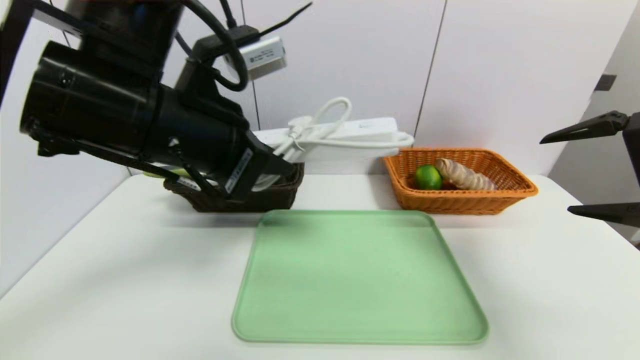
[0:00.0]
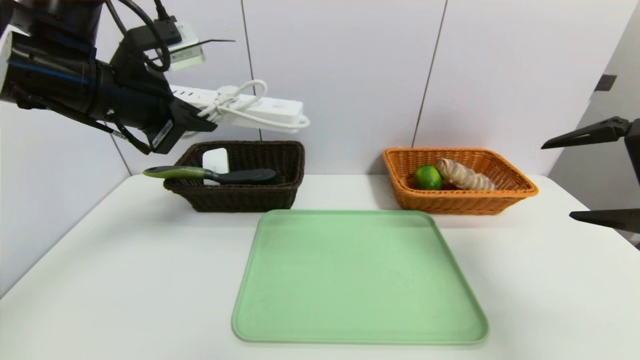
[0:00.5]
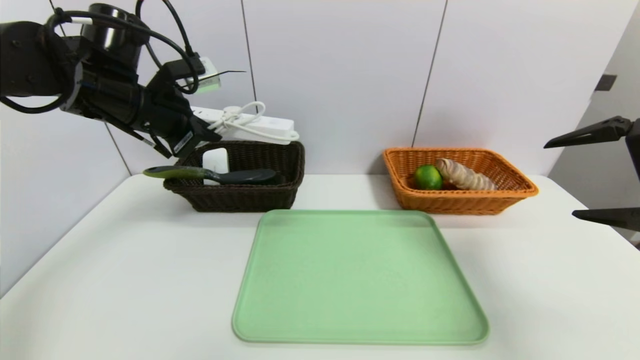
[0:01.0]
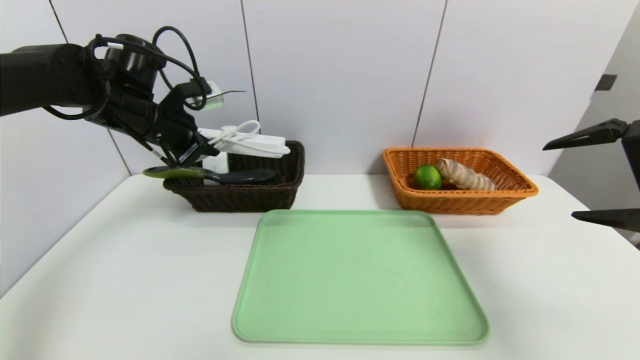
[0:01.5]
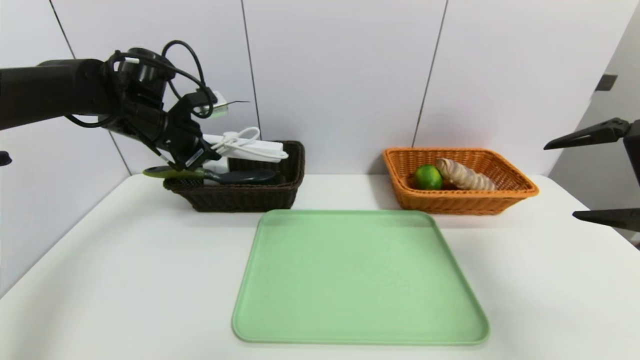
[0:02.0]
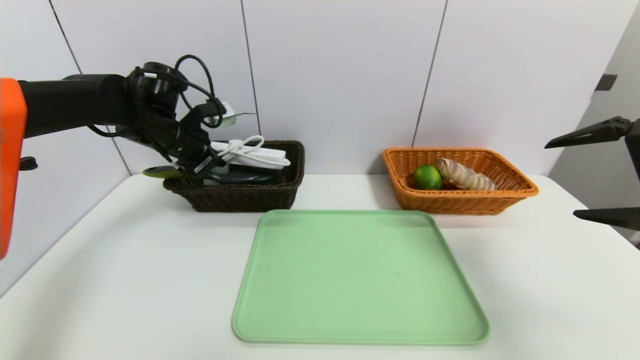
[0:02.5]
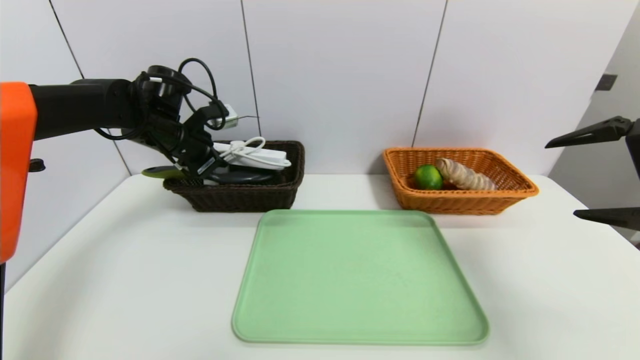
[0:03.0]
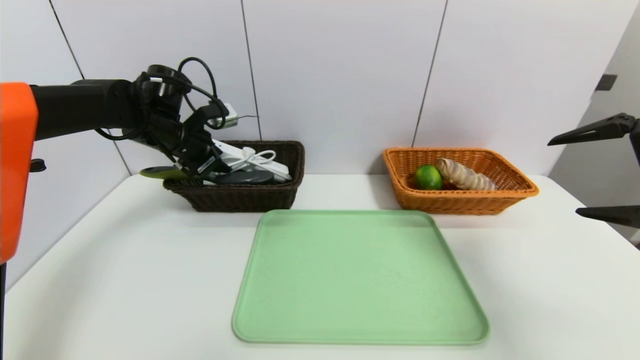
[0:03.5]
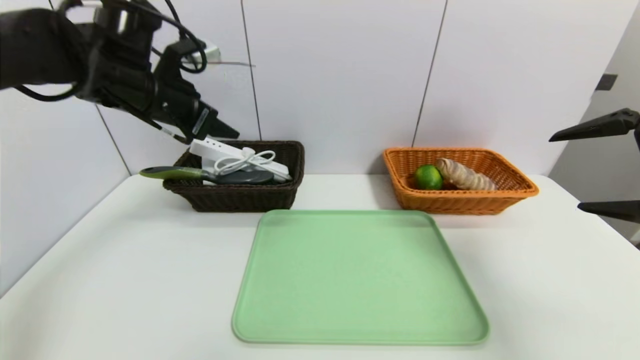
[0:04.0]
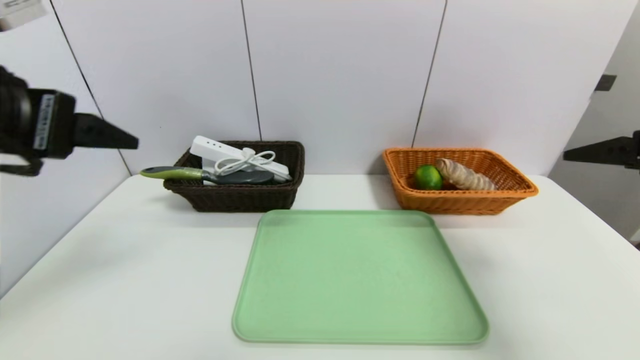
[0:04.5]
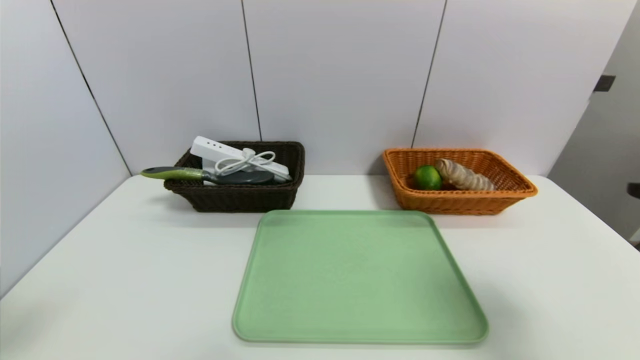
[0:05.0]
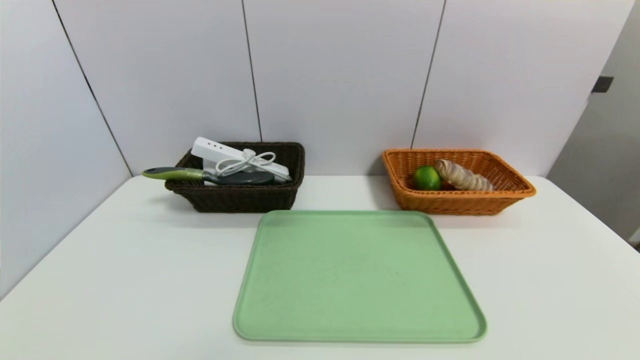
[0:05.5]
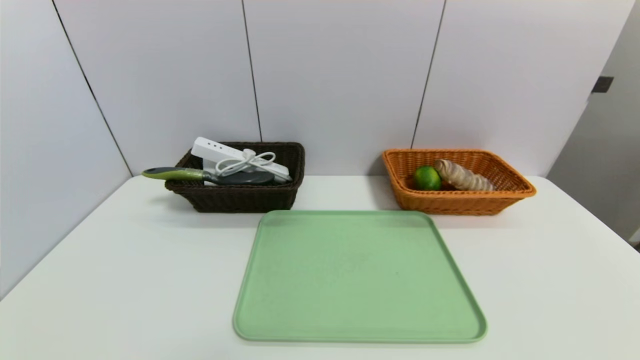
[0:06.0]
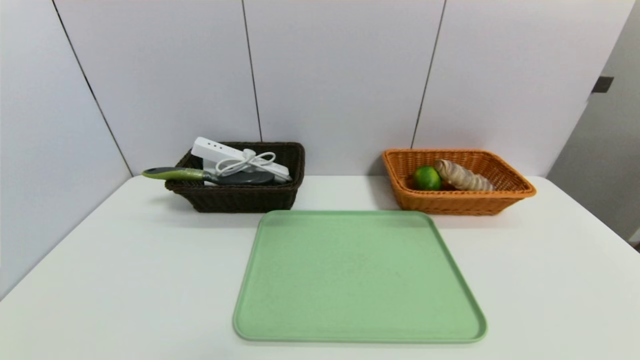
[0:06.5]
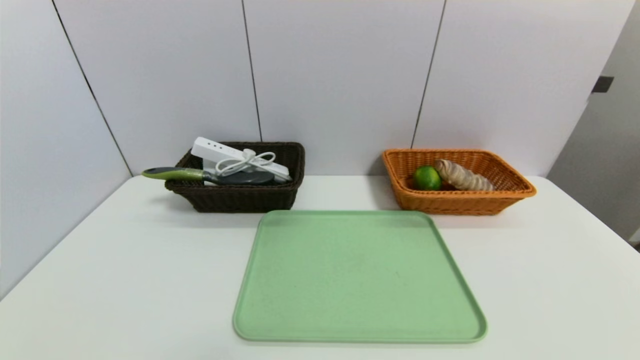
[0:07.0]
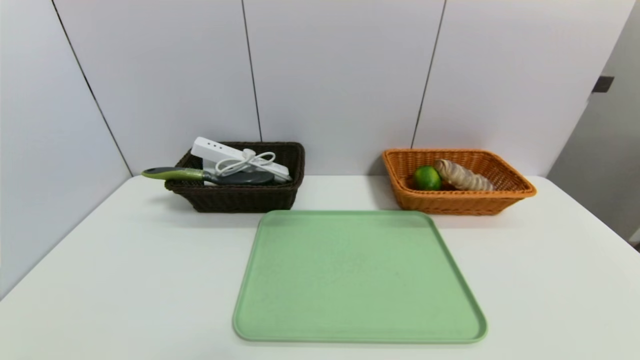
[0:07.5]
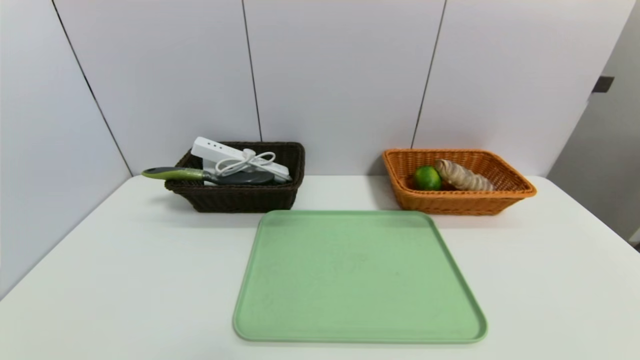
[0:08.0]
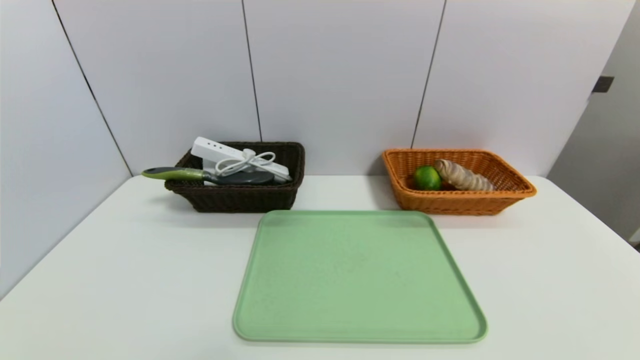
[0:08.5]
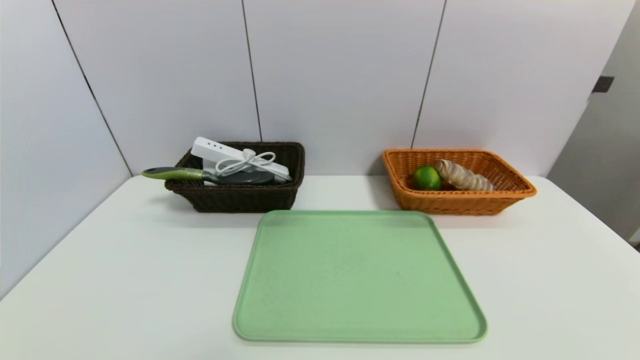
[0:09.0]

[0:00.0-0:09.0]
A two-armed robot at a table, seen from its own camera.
Task of the whole recording: place the food in the right basket with the right gripper, and place the non food items in the left basket with the left gripper.
Step, 0:00.0 to 0:04.0: Grasp the power strip and put it in the left basket.
0:00.0 to 0:02.0: The left gripper moves forward and to the left, some 20 cm.
0:02.0 to 0:04.5: The left gripper travels backward and upward by about 25 cm, and opens.
0:04.5 to 0:07.0: The left gripper travels downward and backward by about 30 cm. The right gripper is displaced backward and downward by approximately 30 cm.

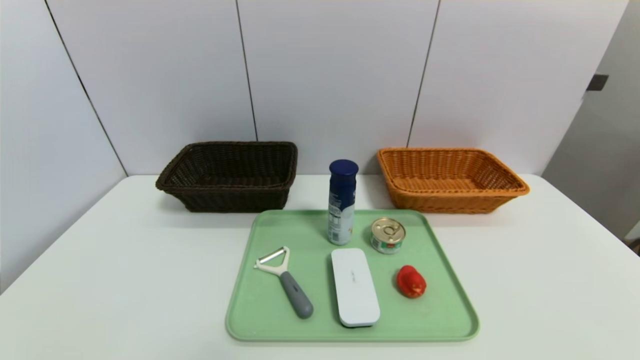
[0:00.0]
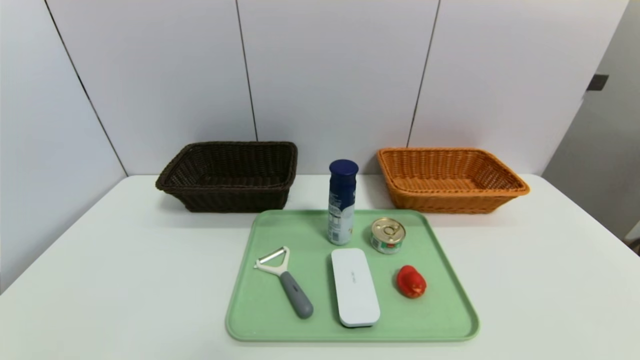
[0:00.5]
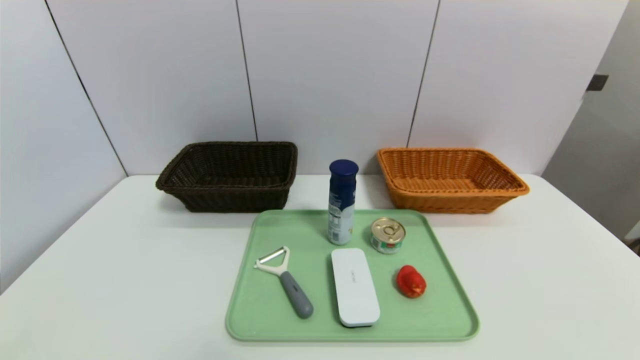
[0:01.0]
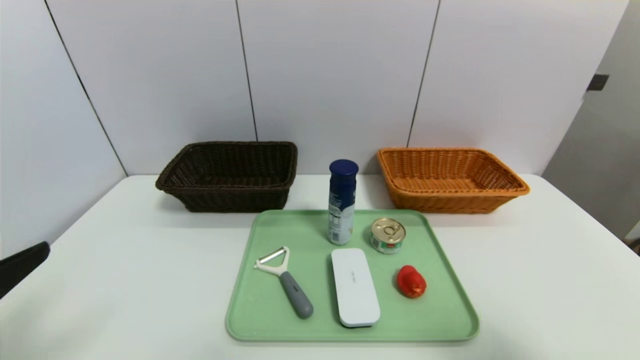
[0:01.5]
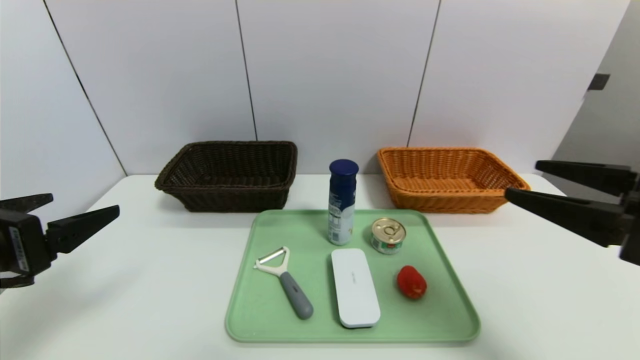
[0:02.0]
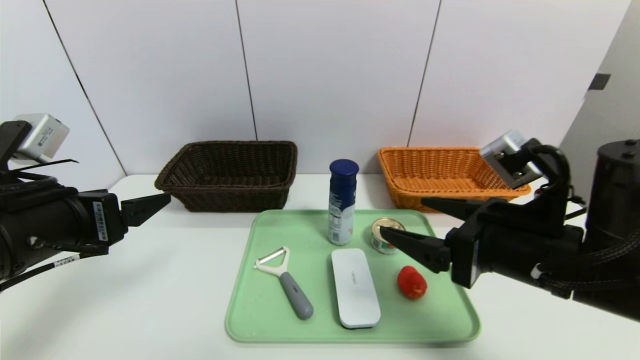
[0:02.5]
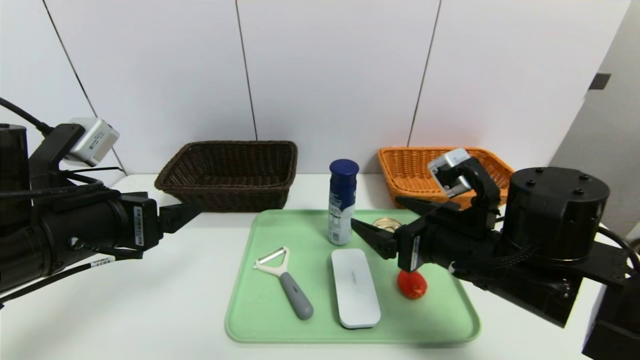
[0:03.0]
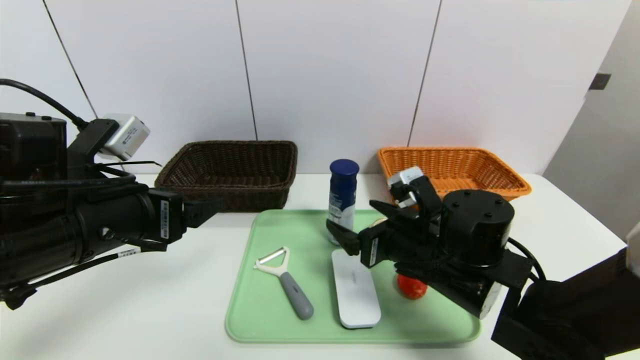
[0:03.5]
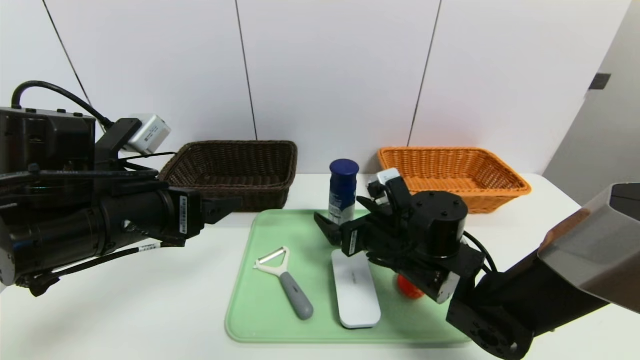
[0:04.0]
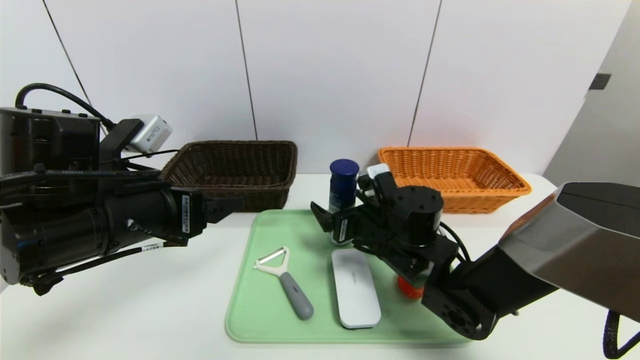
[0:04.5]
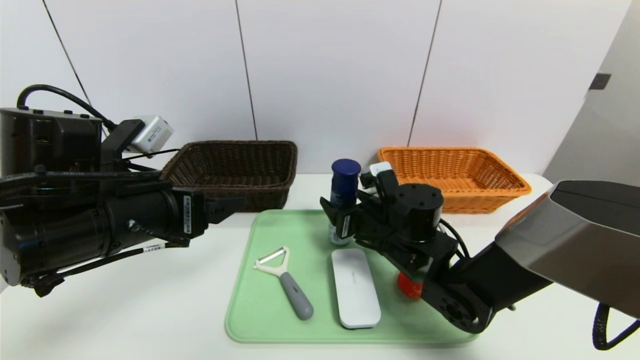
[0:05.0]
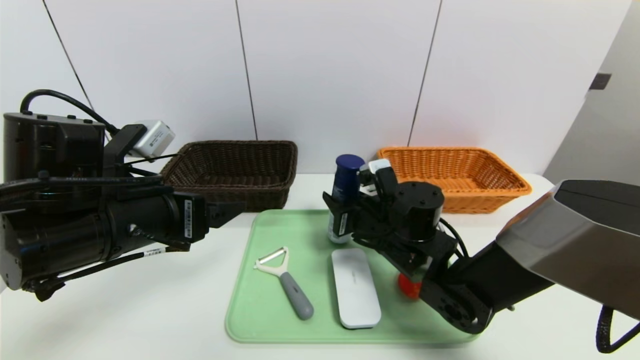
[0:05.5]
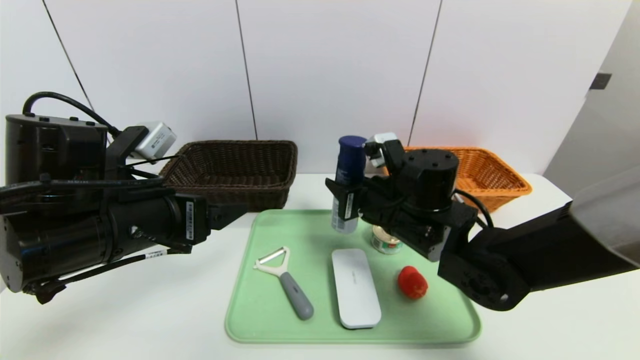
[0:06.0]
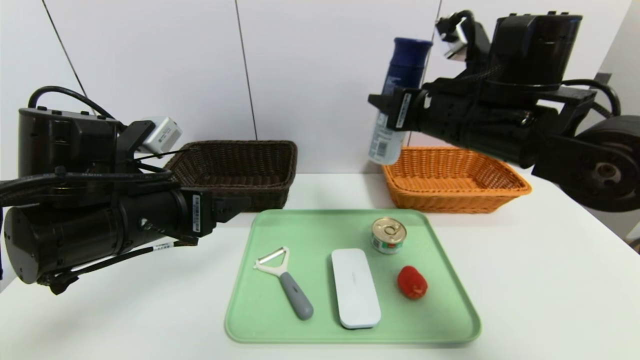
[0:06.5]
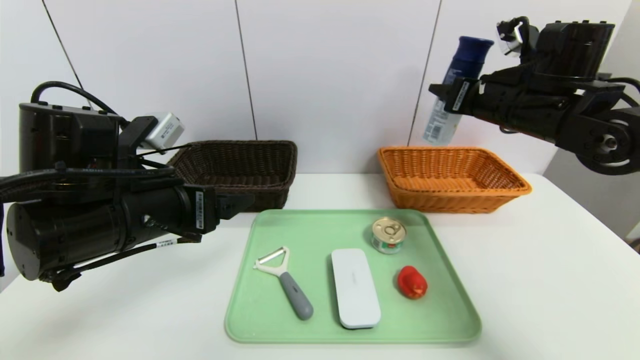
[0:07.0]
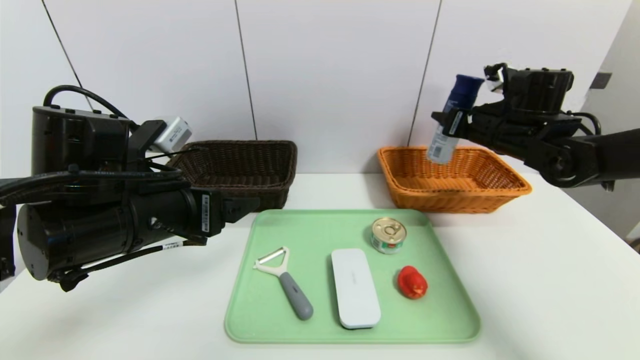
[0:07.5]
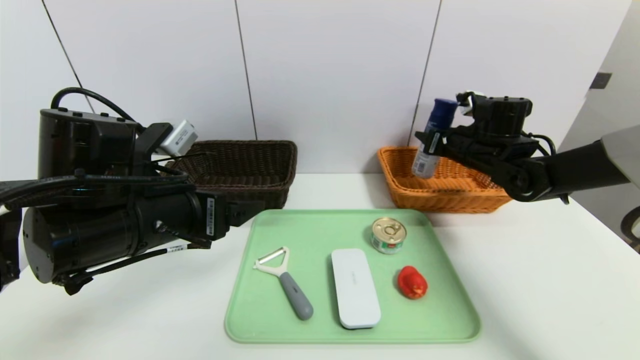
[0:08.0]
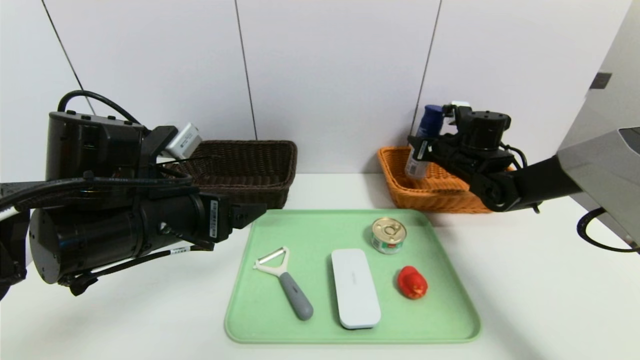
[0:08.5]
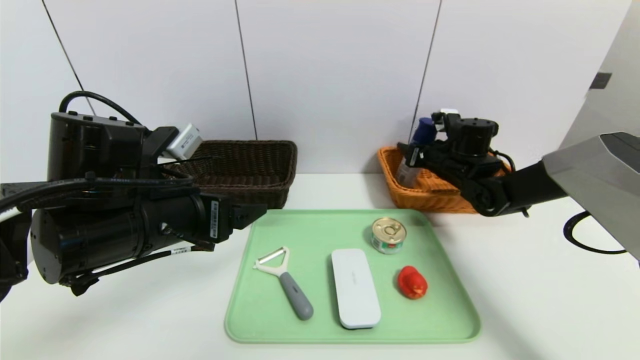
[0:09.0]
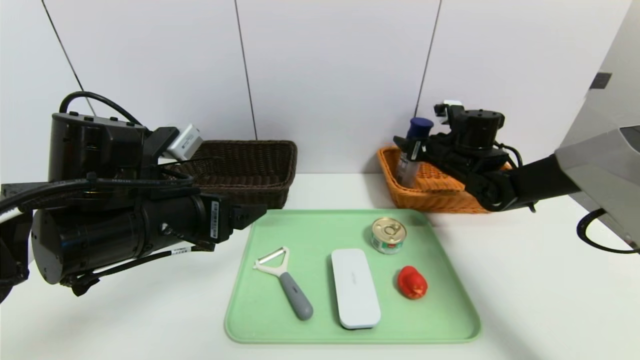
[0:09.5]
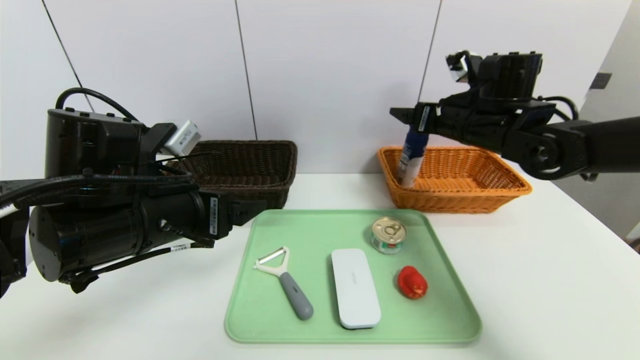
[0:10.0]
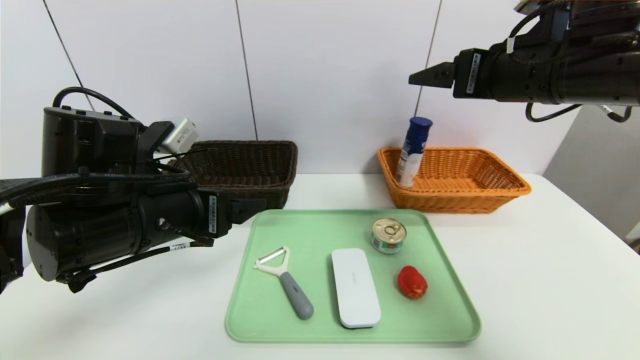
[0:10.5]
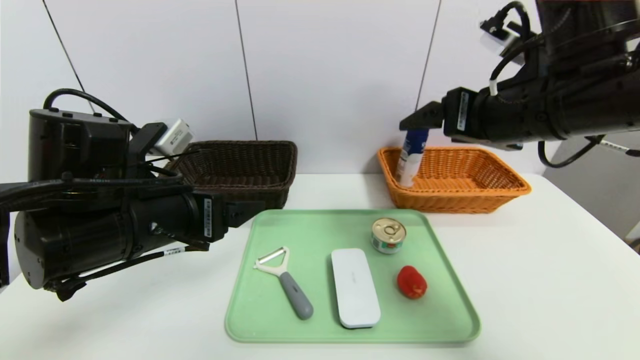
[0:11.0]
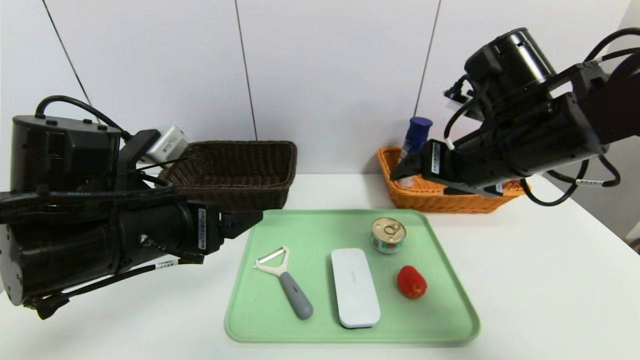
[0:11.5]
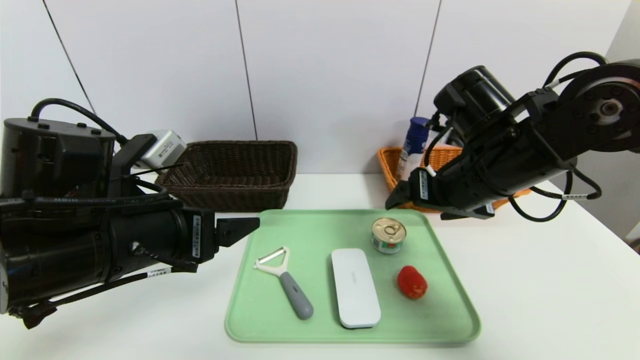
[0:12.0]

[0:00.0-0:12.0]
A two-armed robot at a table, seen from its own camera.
Task of the whole recording: place the food in the right basket with the right gripper, and place the non food items in the left basket with the left gripper.
Step, 0:00.0 to 0:10.0: Grasp the yogurt and put it in the right basket.
0:00.0 to 0:02.0: The grippers both shift upward and forward by roughly 25 cm.
0:02.0 to 0:04.0: The right gripper shifts roughly 25 cm to the left, downward and forward. Meanwhile the left gripper shifts roughly 10 cm to the right and forward.
0:04.0 to 0:06.0: The right gripper shifts by approximately 5 cm, and closes.
0:06.0 to 0:08.0: The right gripper travels to the right and forward by some 20 cm.
0:08.0 to 0:10.0: The right gripper goes about 10 cm upward and backward, and opens up.
0:10.0 to 0:12.0: The right gripper heads backward, covering some 10 cm.
